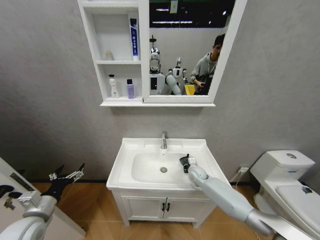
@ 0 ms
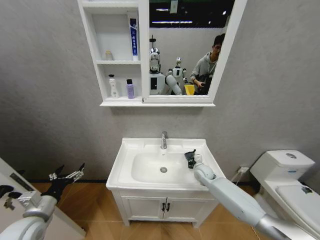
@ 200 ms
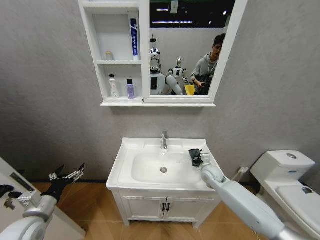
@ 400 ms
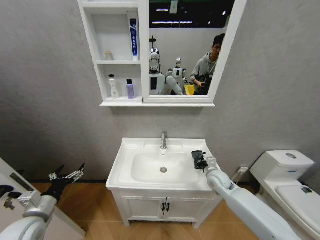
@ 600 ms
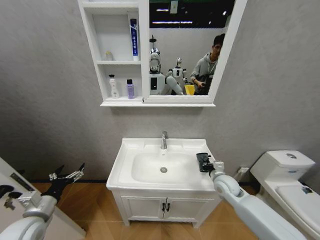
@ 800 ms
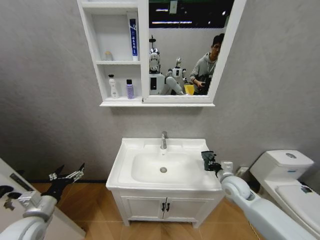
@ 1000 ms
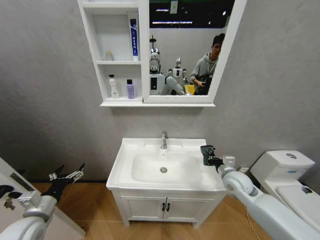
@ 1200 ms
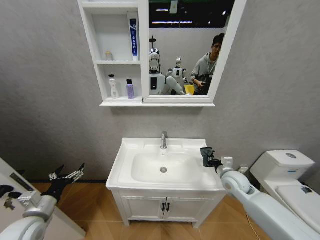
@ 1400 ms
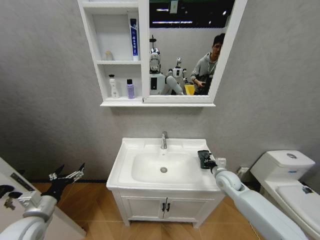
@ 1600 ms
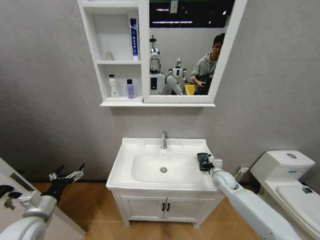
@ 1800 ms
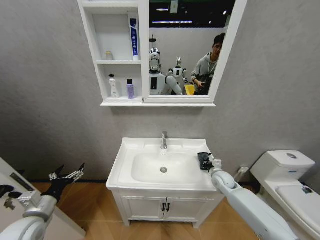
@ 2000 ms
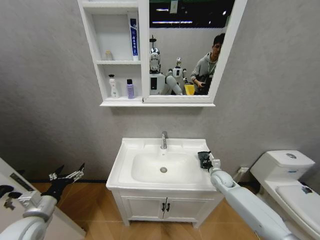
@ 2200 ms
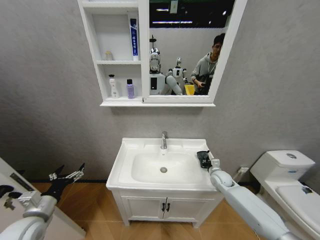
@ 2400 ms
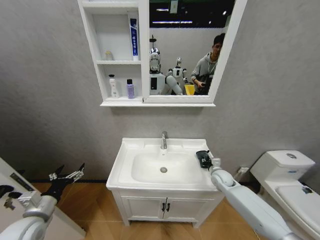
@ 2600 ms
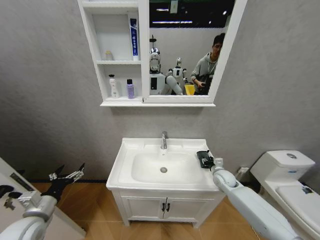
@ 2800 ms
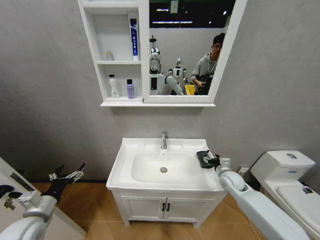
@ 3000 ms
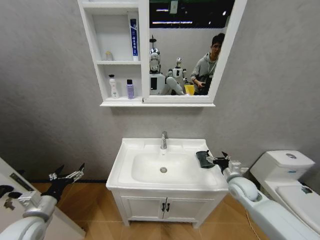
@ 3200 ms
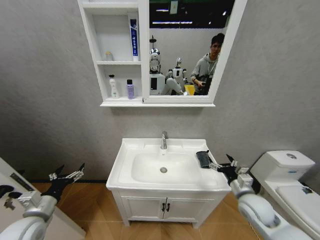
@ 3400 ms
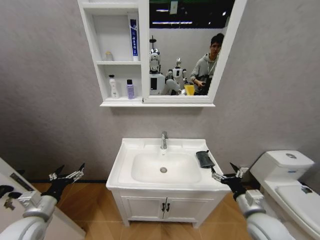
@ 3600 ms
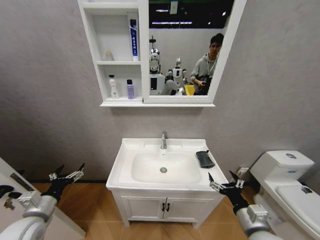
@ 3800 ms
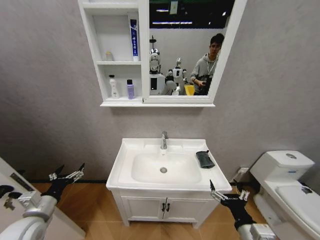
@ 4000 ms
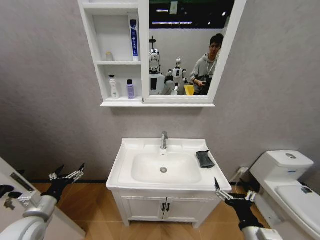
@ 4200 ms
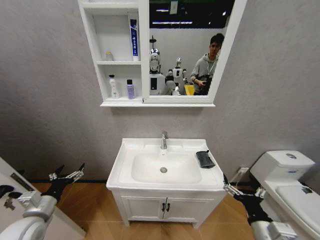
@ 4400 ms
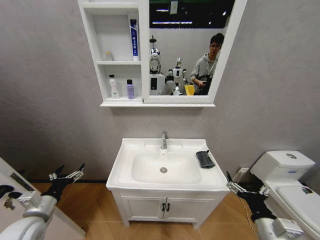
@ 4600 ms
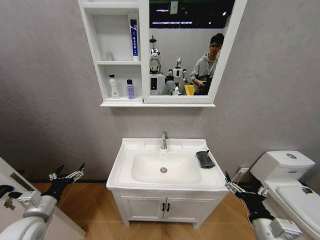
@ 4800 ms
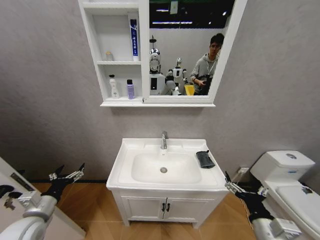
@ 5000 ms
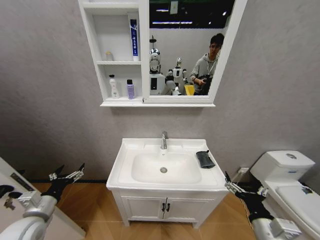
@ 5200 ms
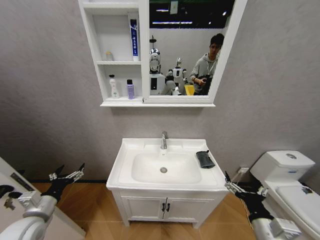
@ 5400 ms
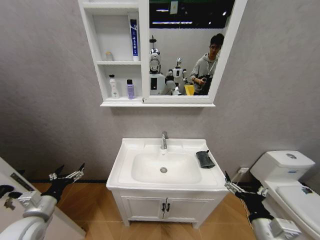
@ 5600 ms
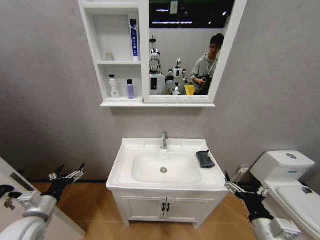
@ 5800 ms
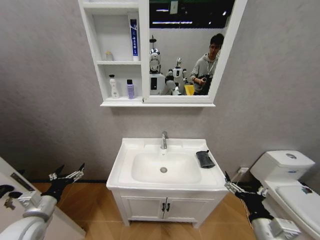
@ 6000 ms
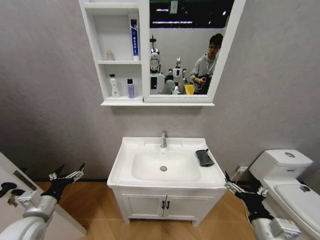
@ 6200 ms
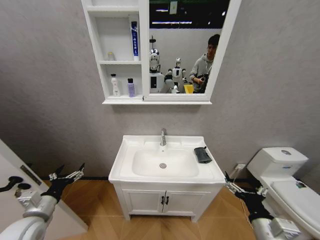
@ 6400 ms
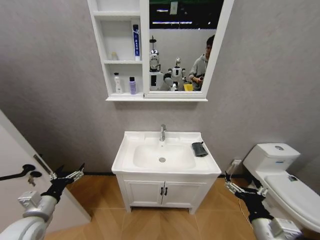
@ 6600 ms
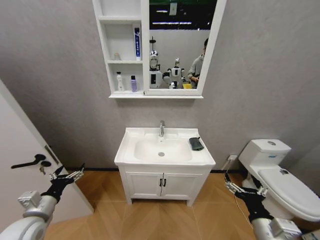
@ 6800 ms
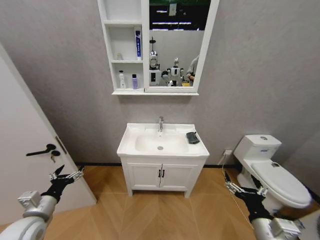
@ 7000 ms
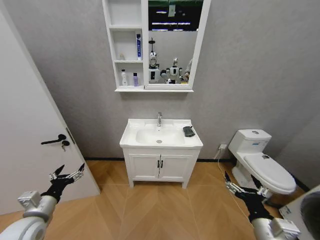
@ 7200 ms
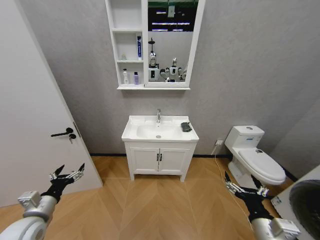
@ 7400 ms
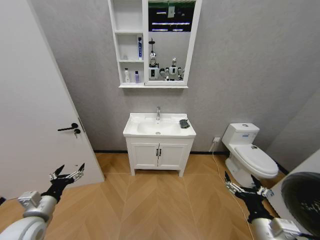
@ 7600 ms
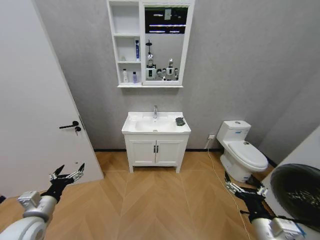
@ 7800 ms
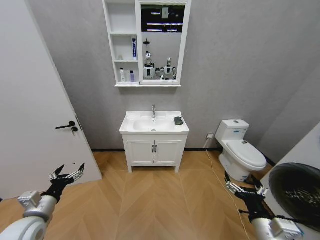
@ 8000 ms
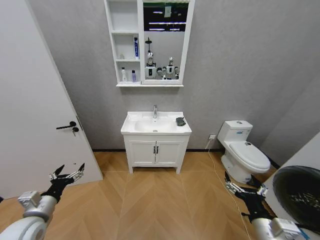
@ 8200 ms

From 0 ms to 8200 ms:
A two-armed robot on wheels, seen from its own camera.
Task of the whole recording: Move facial cleanser and shampoo from washbasin to cabinet, then wipe washbasin with towel.
From 0 ms to 1600 ms: The right gripper heads to the right, backward and upward, covering approximately 15 cm.
From 1600 ms to 3200 ms: The right gripper opens.
From 3200 ms to 5000 ms: The right gripper goes roughly 25 cm backward.
